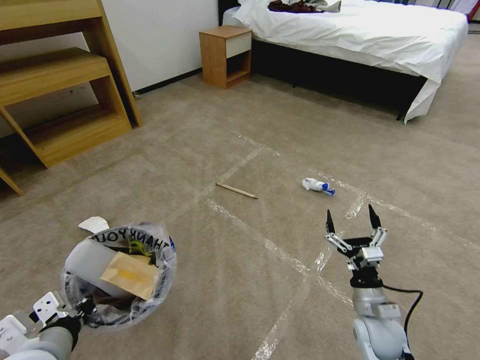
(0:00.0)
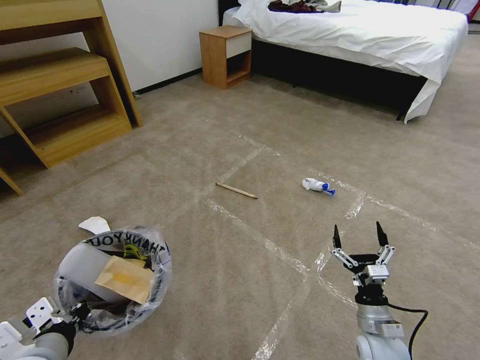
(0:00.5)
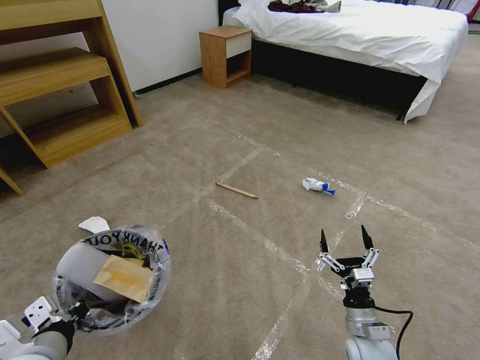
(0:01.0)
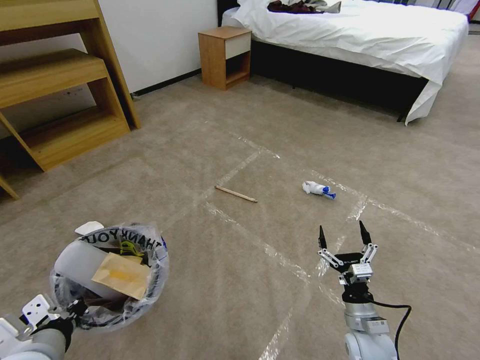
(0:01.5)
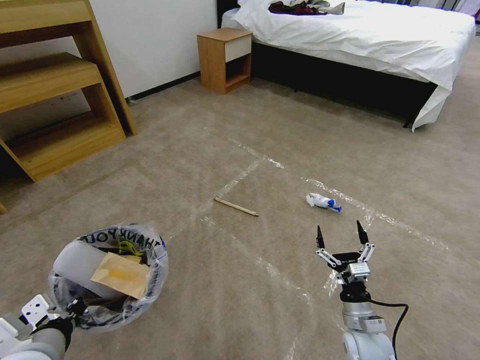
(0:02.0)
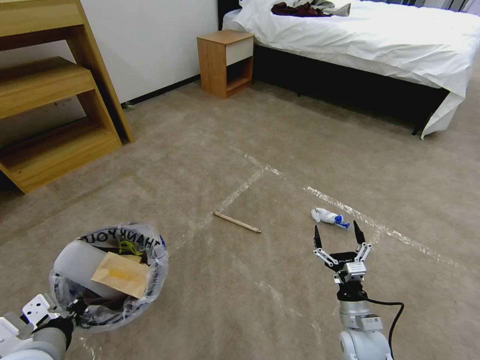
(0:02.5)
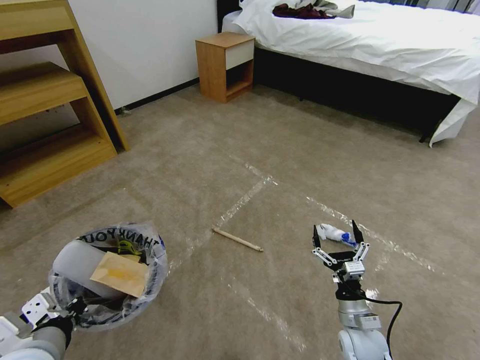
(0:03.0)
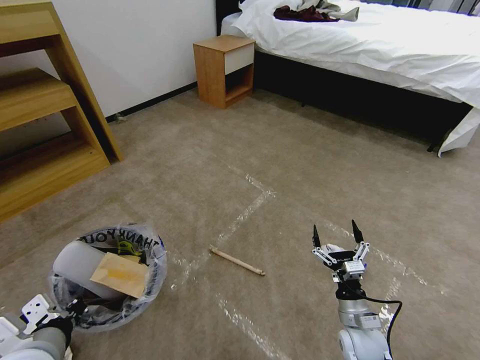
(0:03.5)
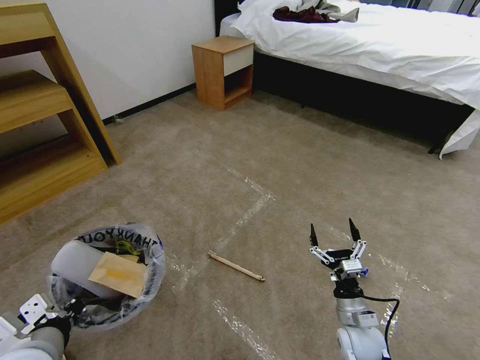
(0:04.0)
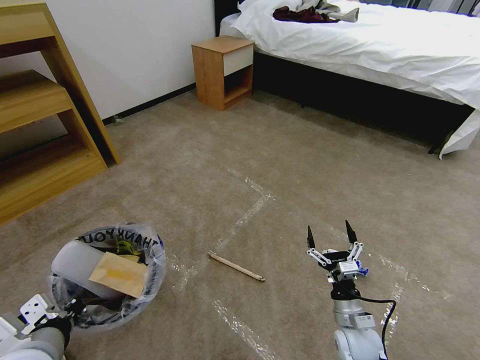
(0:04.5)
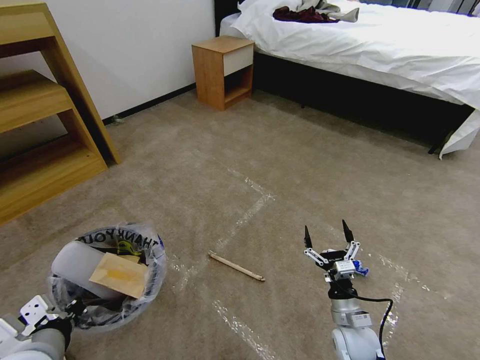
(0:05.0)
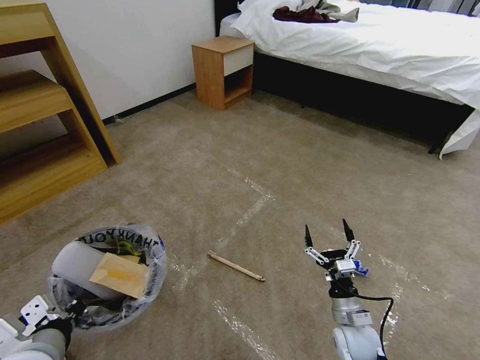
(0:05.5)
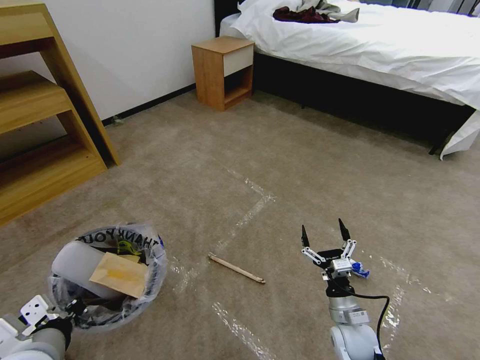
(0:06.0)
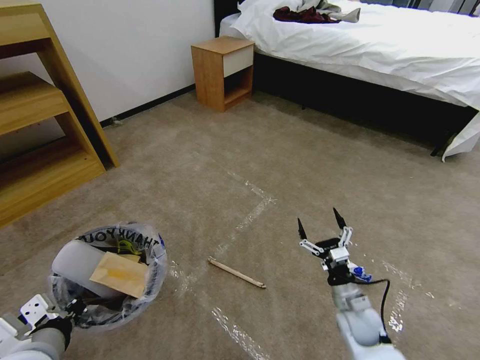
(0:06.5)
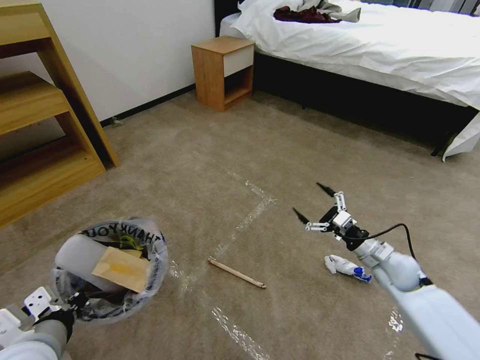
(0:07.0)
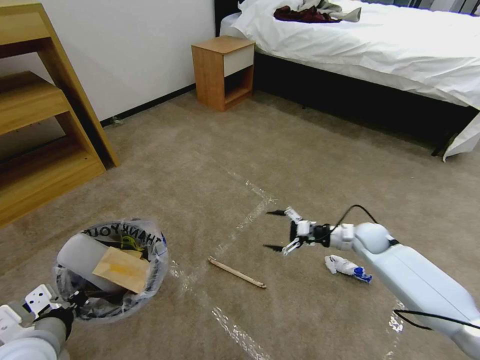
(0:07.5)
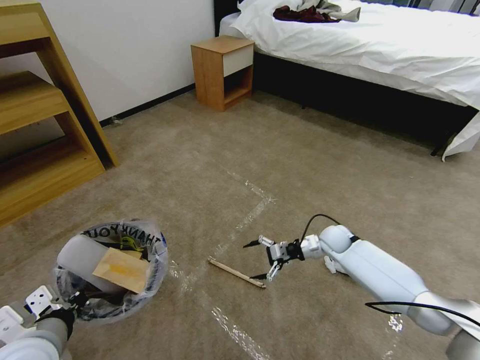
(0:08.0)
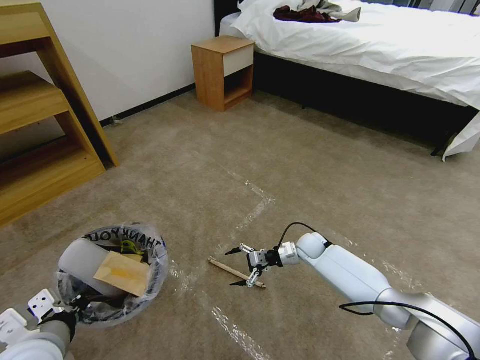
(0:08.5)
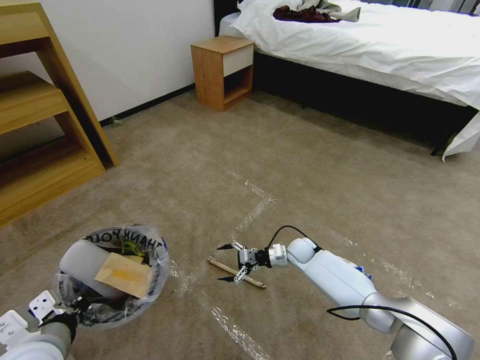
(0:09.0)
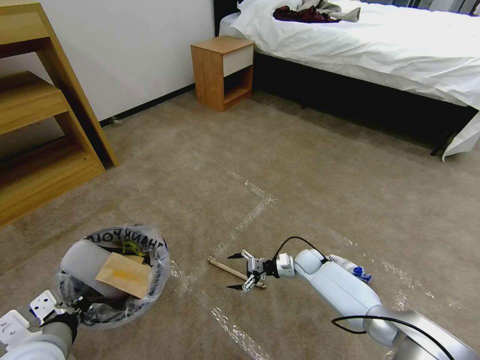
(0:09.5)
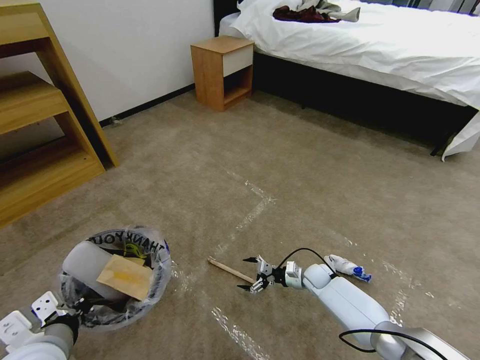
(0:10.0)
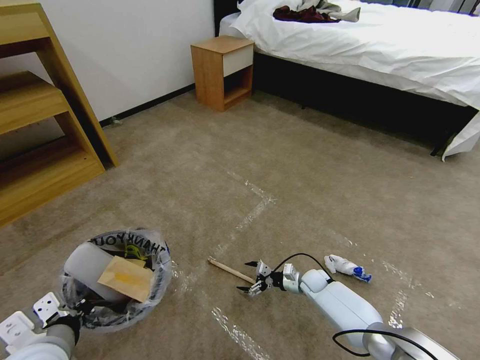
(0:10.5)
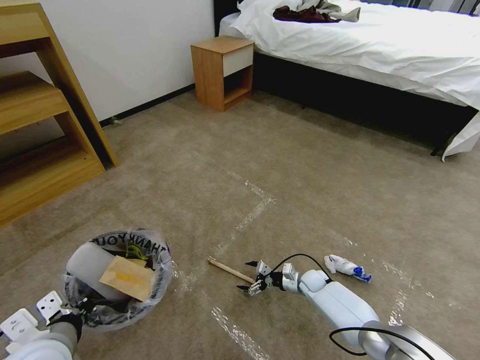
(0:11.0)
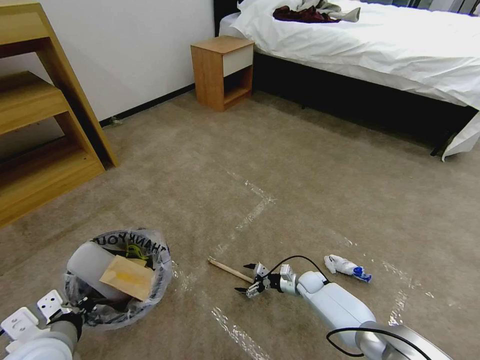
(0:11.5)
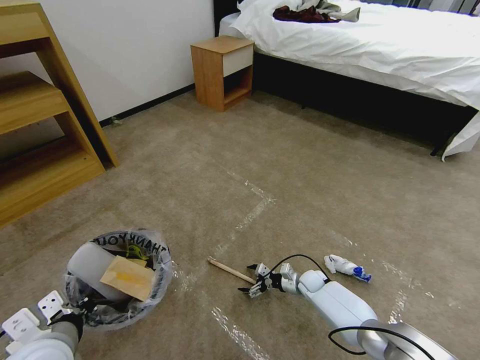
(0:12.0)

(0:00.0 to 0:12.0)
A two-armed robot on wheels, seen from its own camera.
Task of the whole recording: Pick up the trash bin and place the garbage on the floor into it.
0:00.0 - 0:02.0: The grippers move only a little.
0:04.0 - 0:06.0: The grippers move only a little.
0:06.0 - 0:08.0: The right gripper goes roughly 25 cm forward.
0:08.0 - 0:10.0: The right gripper heads downward and backward, covering approximately 15 cm.
0:10.0 - 0:12.0: There are only small adjustments of the grippers.

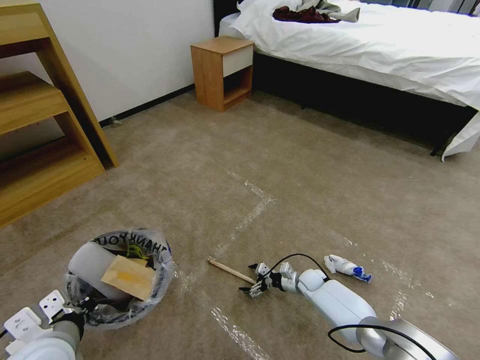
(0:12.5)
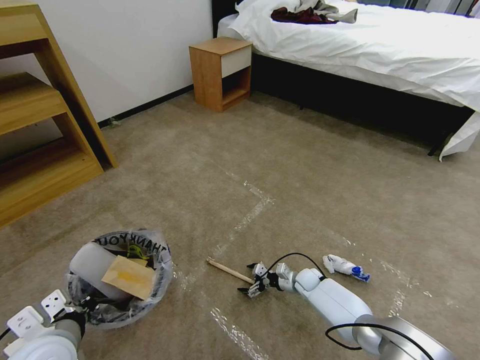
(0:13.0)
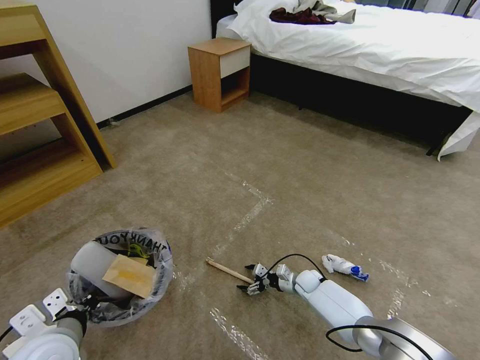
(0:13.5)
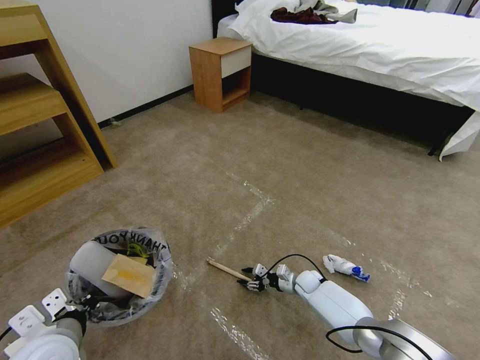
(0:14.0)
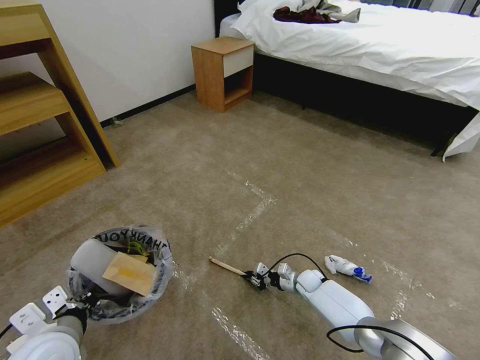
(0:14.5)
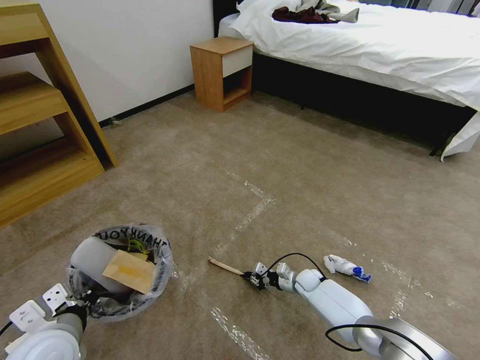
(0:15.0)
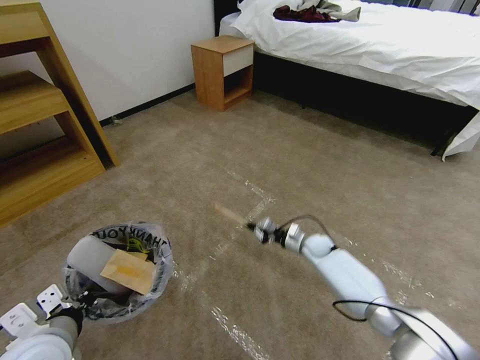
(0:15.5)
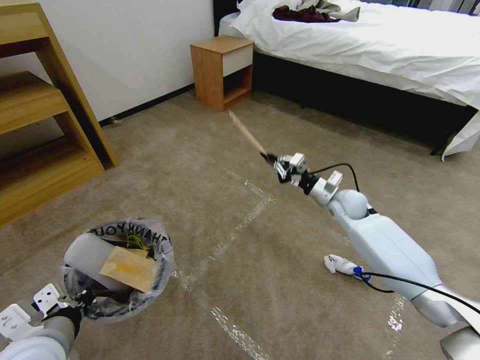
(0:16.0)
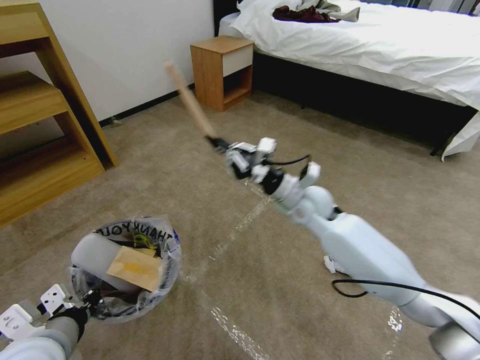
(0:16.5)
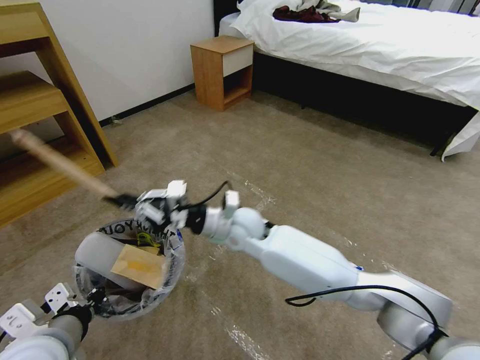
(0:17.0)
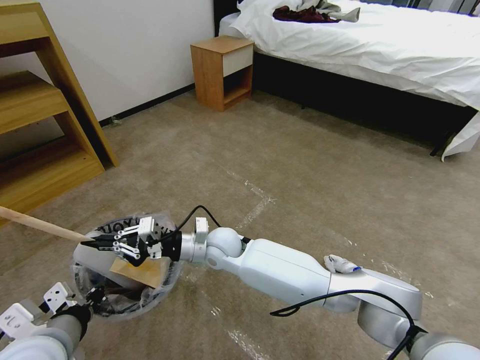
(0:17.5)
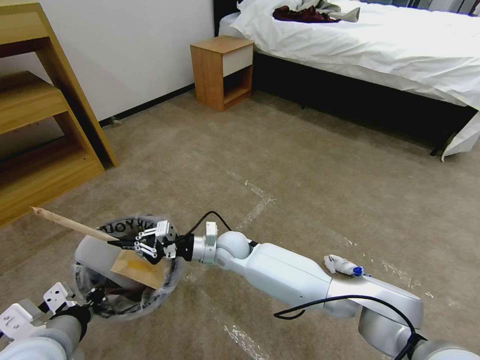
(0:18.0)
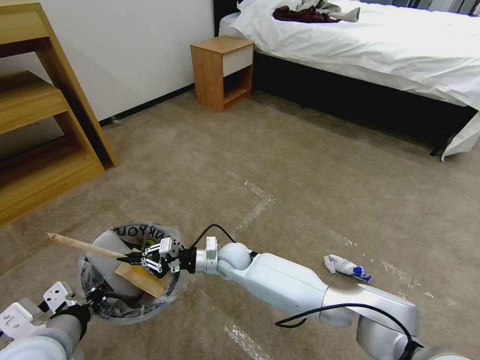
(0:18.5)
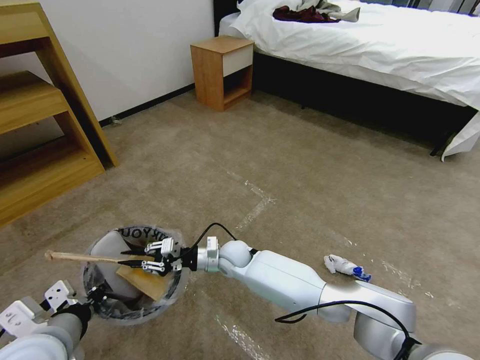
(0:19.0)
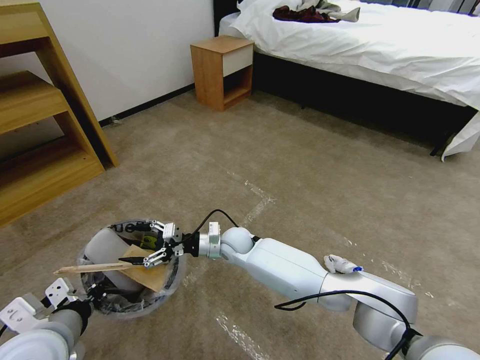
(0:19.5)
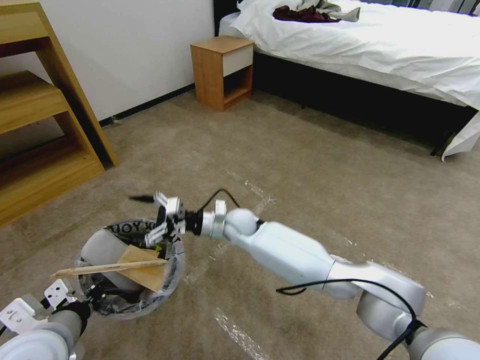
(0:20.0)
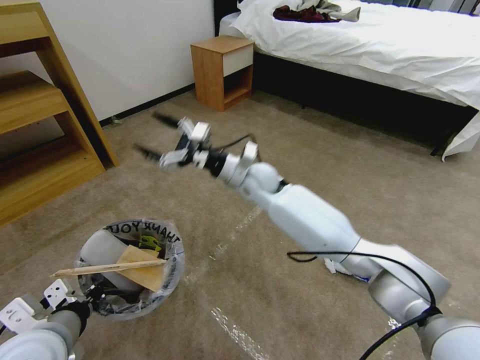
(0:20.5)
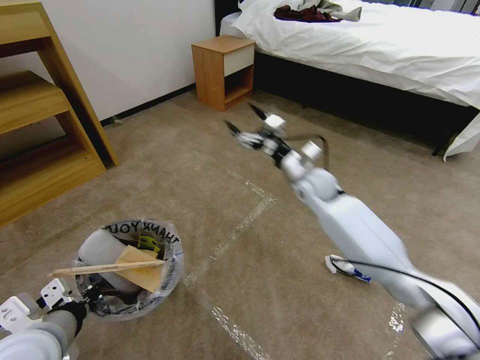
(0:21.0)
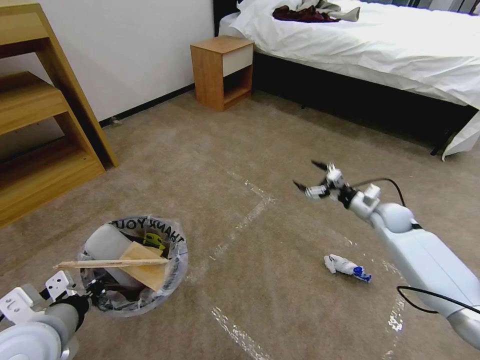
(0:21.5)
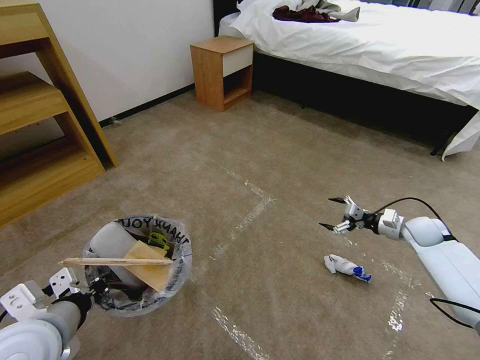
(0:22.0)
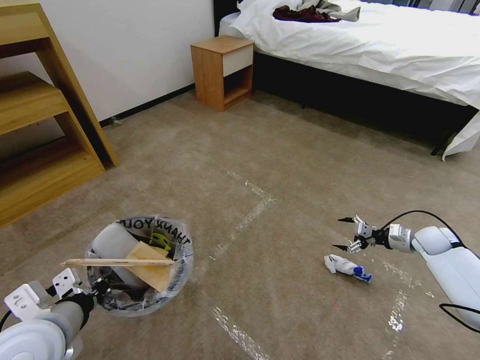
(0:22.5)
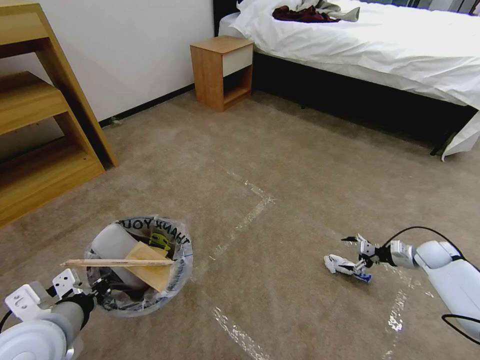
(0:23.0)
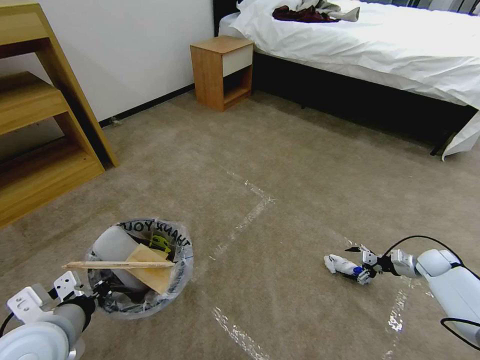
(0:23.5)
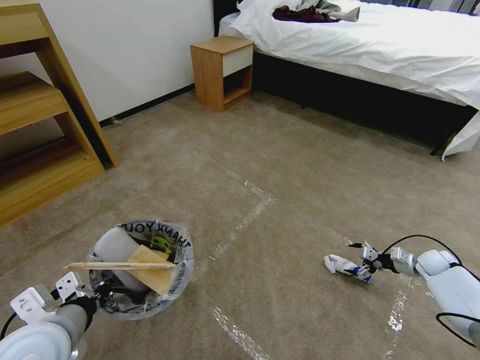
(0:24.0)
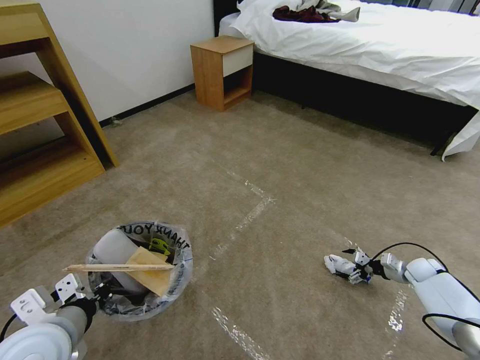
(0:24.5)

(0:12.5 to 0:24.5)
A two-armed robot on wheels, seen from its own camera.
Task of the whole recording: Pick up the trash bin and place the garbage on the floor into it.
0:12.5 - 0:14.5: The right gripper closes its fingers.
0:14.5 - 0:16.5: The left gripper shifts by some 5 cm. The right gripper goes about 35 cm upward.
0:16.5 - 0:18.5: The right gripper shifts some 25 cm to the left and downward.
0:18.5 - 0:20.5: The right gripper travels upward and forward by approximately 20 cm, and opens.
0:20.5 - 0:22.5: The right gripper is displaced to the right by some 50 cm.
0:22.5 - 0:24.5: The right gripper is displaced downward by approximately 10 cm.

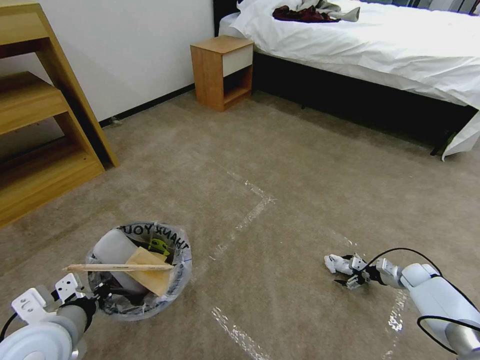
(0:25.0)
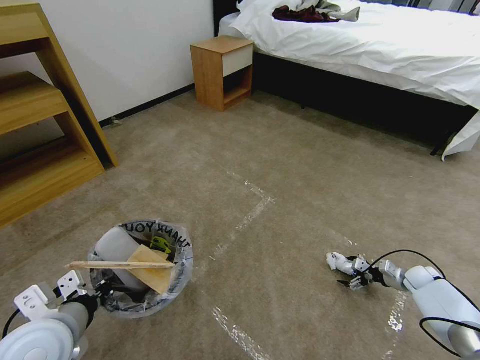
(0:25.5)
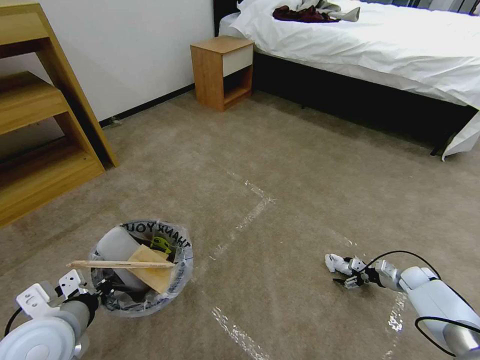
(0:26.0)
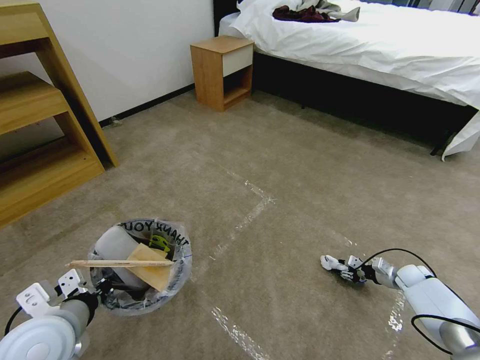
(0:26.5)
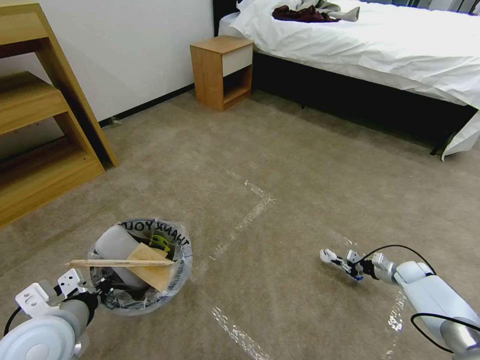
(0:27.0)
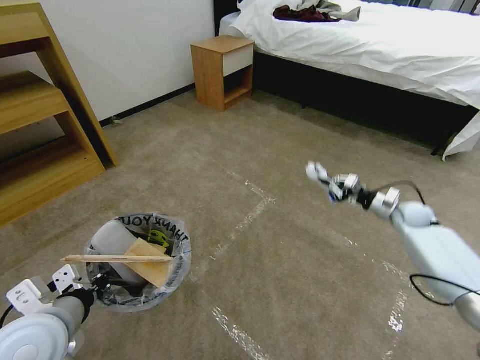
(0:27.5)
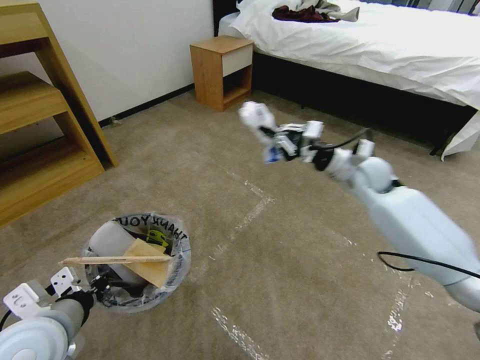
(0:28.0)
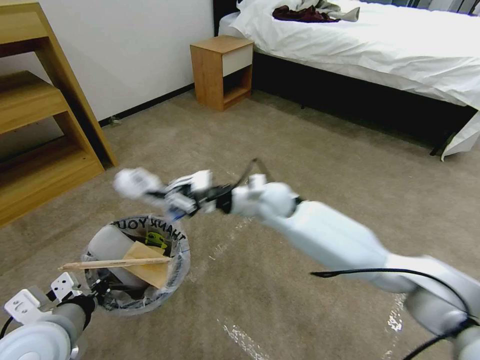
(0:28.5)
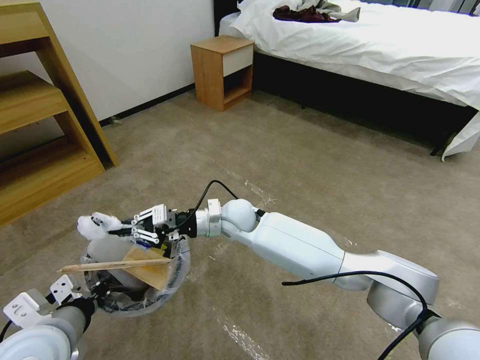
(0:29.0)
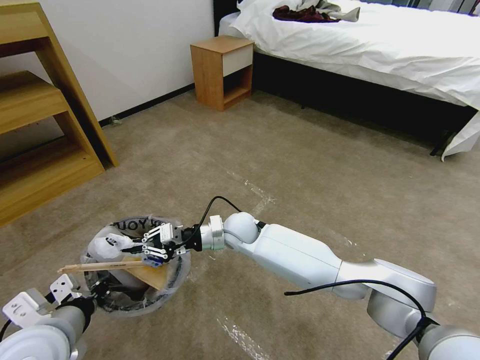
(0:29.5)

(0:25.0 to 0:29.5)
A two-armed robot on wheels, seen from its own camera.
Task of the whole recording: Pick up the trash bin and place the garbage on the floor into it.
0:25.0 - 0:27.0: The right gripper closes up.
0:27.0 - 0:29.5: The right gripper is displaced to the left by about 50 cm.
